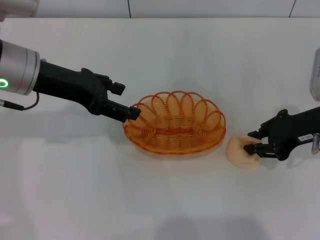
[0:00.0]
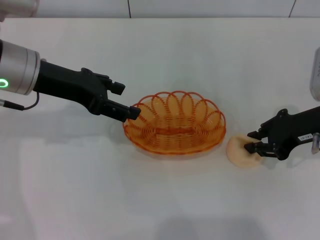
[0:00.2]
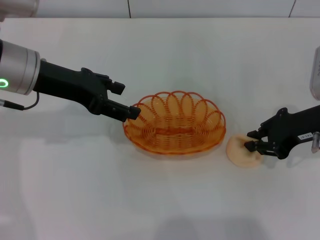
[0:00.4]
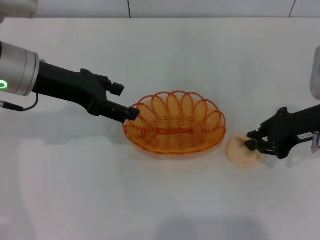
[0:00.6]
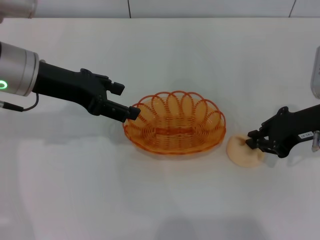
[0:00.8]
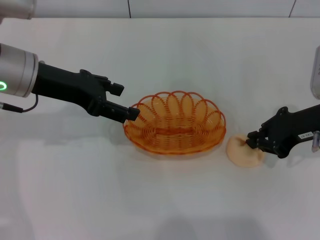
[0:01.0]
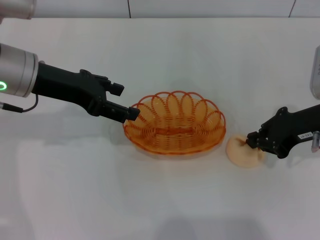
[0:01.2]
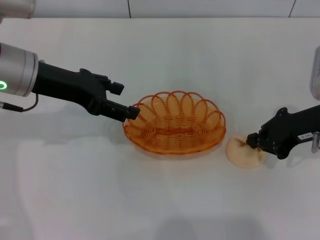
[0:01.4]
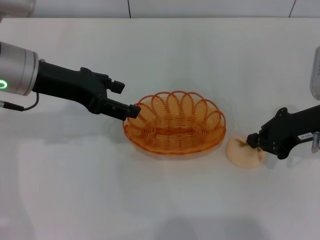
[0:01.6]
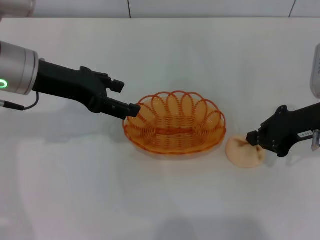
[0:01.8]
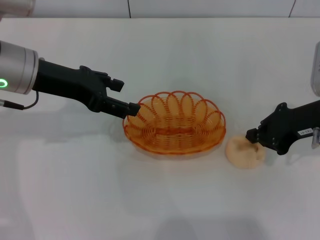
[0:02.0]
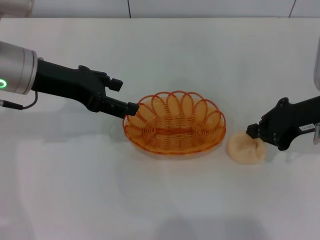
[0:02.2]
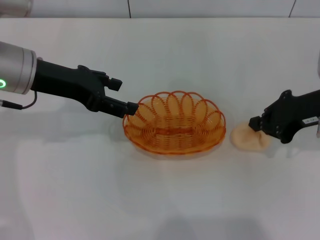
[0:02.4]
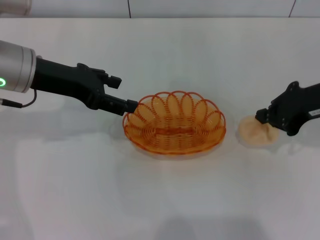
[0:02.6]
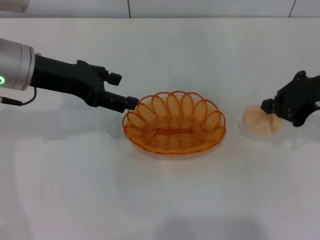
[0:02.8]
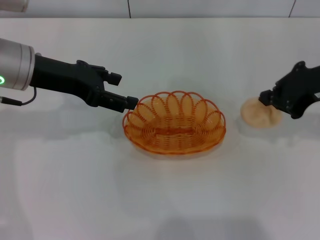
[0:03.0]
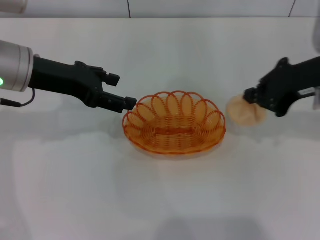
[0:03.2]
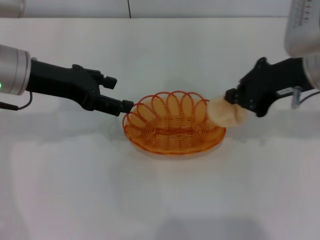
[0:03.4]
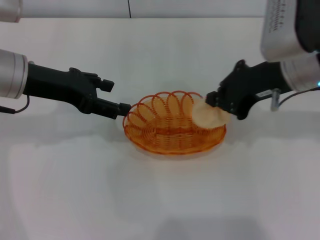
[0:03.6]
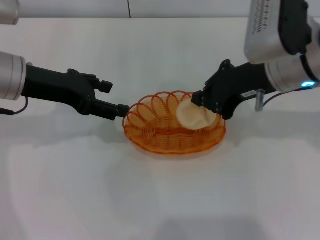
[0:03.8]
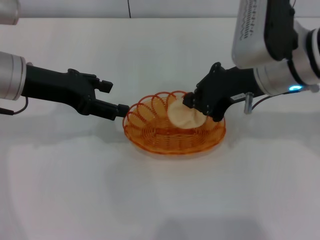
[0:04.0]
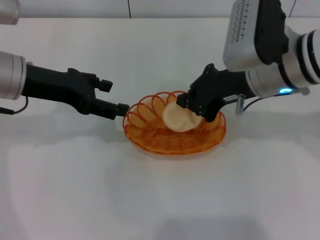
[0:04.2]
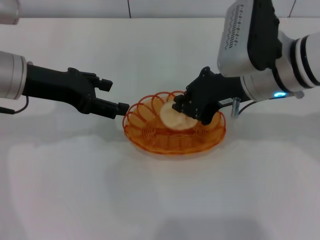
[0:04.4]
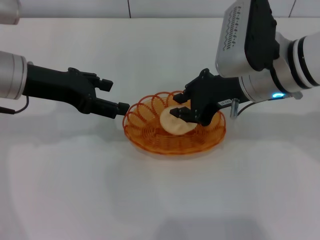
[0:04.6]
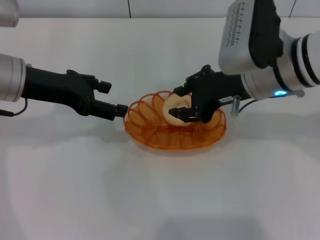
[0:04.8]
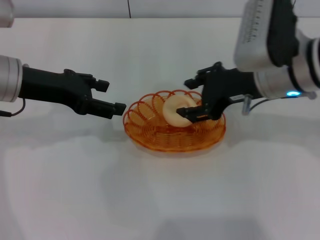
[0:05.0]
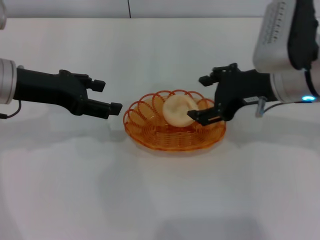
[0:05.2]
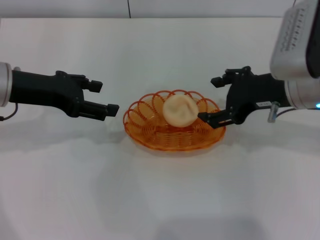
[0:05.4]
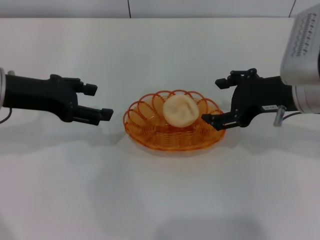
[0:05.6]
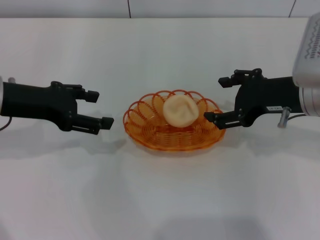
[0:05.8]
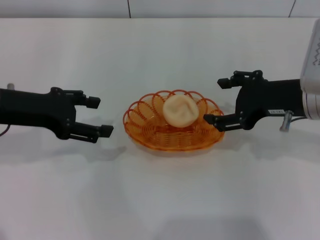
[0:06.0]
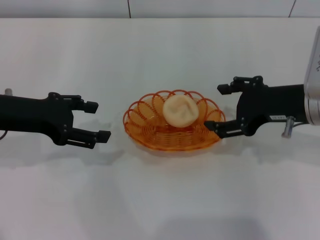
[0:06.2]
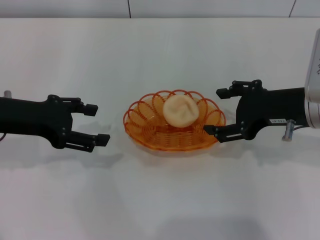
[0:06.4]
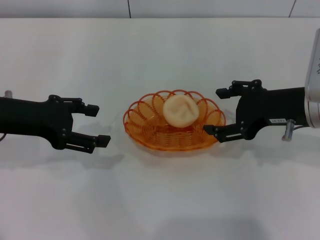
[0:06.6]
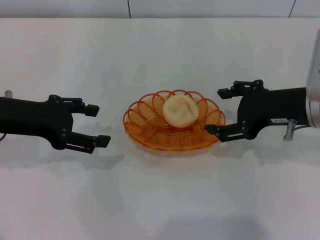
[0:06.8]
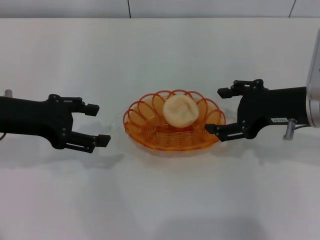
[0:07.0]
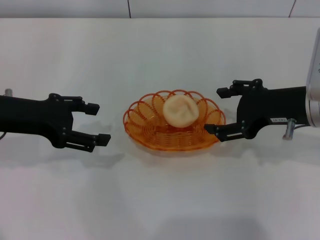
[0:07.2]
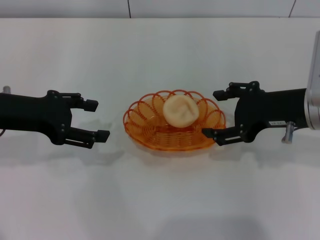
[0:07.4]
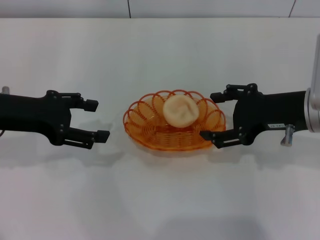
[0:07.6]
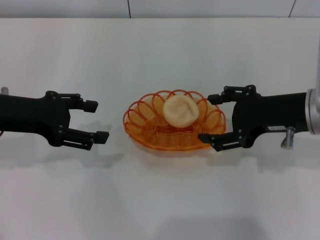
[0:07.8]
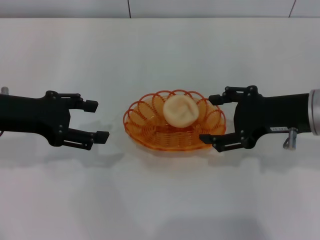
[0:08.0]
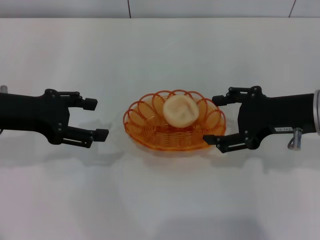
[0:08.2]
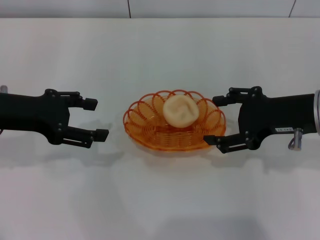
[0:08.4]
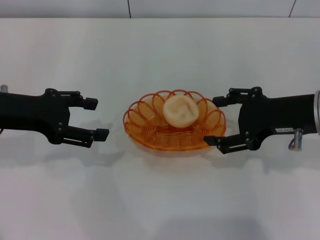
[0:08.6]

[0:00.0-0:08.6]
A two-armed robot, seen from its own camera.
Step, 0:00.0 to 0:03.0: Pick up the egg yolk pastry with the right gripper.
Step, 0:03.2 to 0:06.4: Place the egg yolk pastry into the basket with the right gripper.
0:00.0 to 0:01.4: Both grippers stay put.
0:01.4 to 0:02.8: The right gripper heads upward, covering approximately 5 cm.
0:02.8 to 0:04.4: The right gripper shifts about 10 cm to the left.
0:04.4 to 0:05.8: The right gripper heads to the right, covering some 5 cm, and opens up.
0:05.8 to 0:08.6: There are only small adjustments of the grippers.
